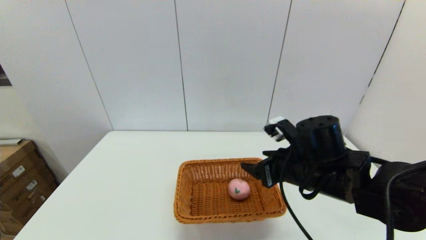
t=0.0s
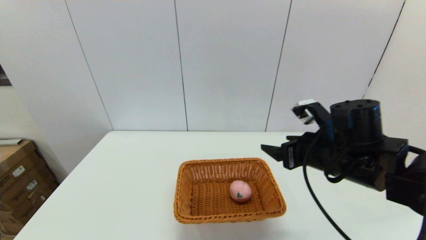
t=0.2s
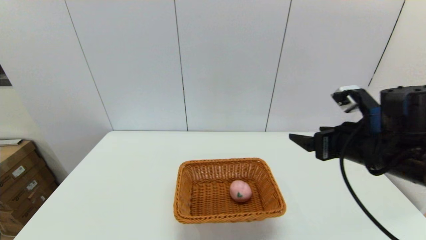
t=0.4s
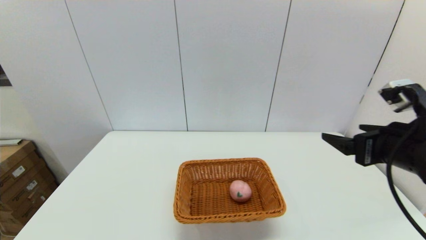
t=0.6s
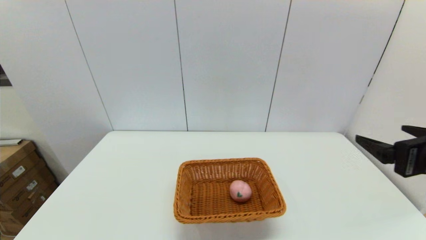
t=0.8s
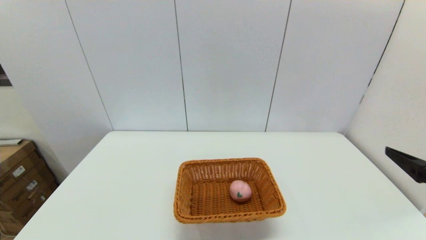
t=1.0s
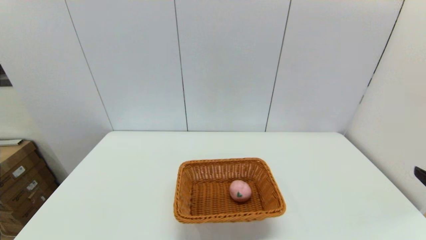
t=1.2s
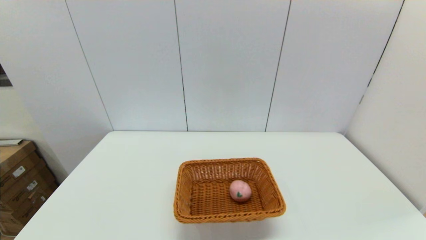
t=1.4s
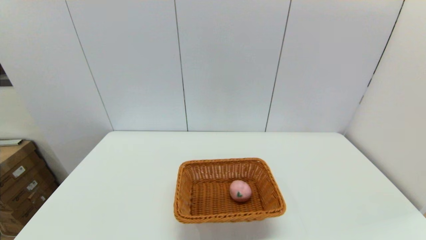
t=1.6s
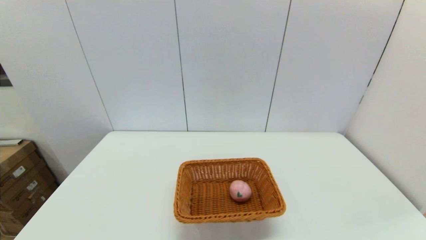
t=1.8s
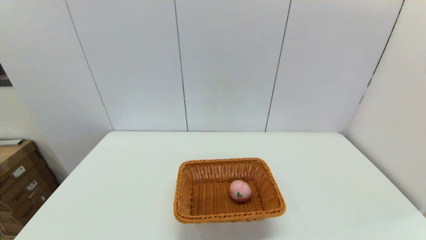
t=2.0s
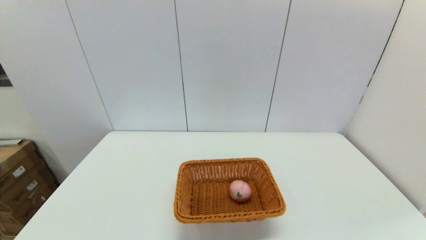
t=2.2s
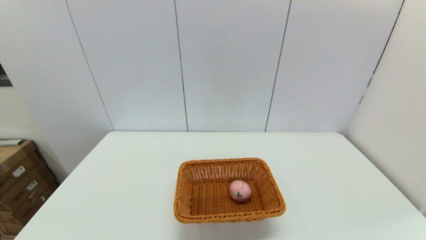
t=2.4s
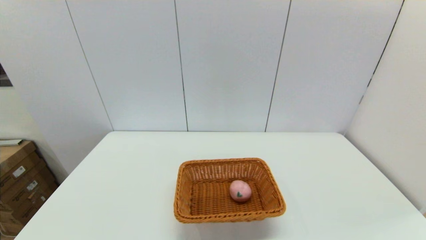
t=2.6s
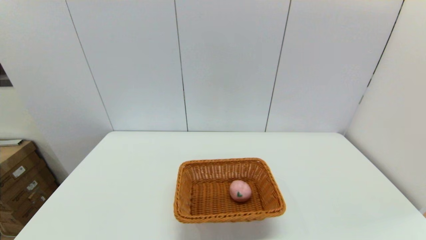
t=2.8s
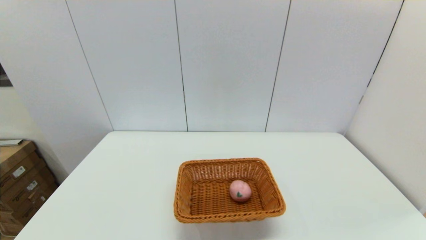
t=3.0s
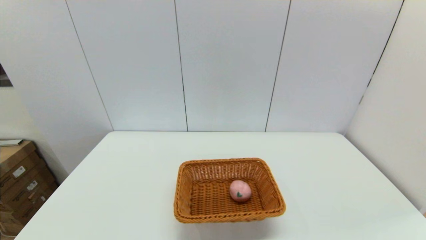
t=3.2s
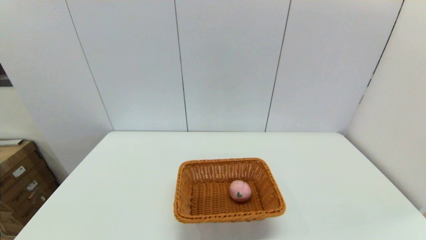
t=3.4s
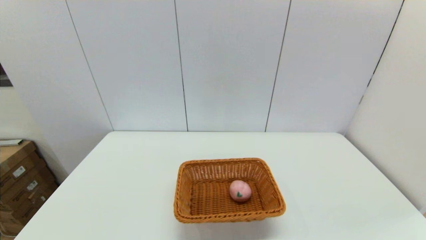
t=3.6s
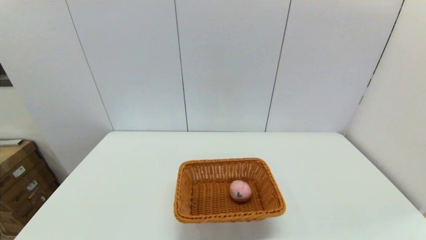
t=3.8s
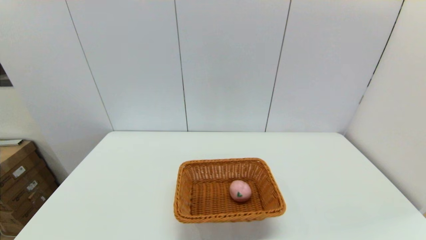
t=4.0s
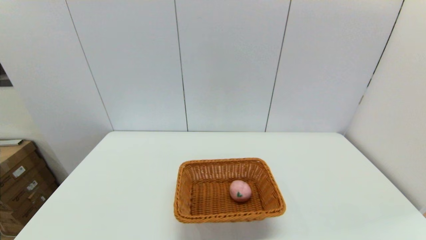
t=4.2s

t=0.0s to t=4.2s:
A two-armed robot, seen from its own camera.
t=0.0s to t=1.4s: The right gripper is displaced backward and to the right by some 25 cm.
